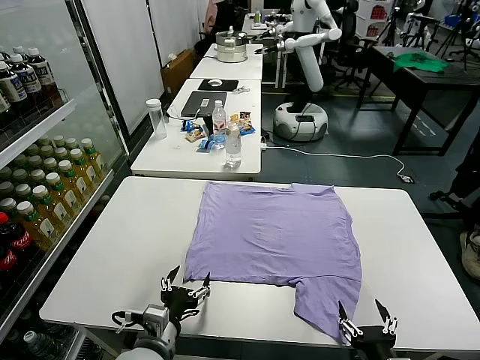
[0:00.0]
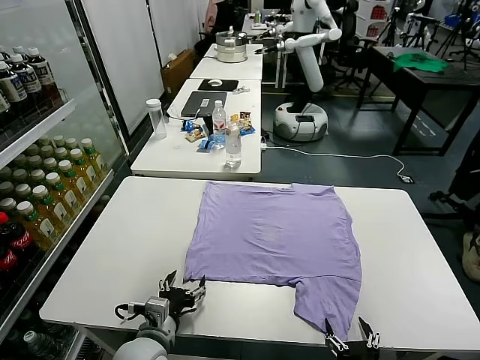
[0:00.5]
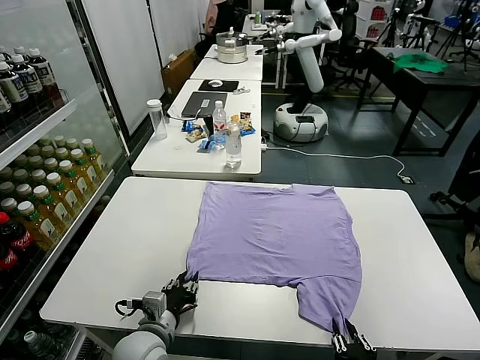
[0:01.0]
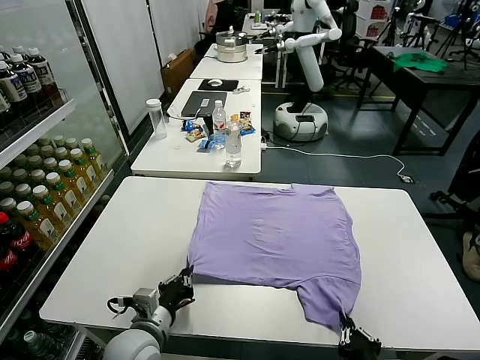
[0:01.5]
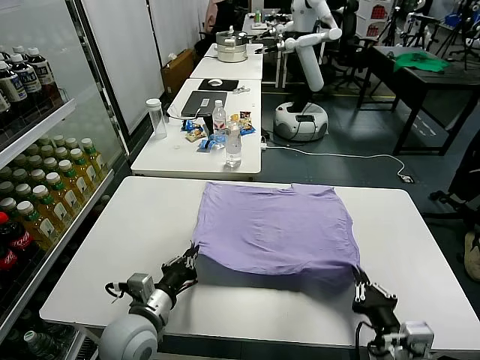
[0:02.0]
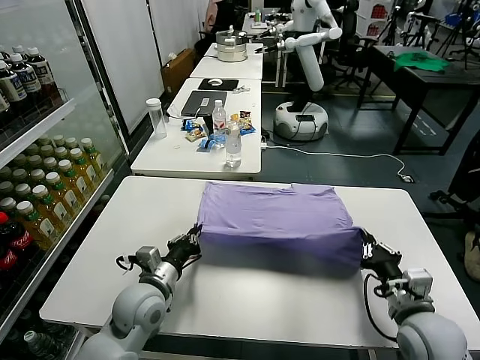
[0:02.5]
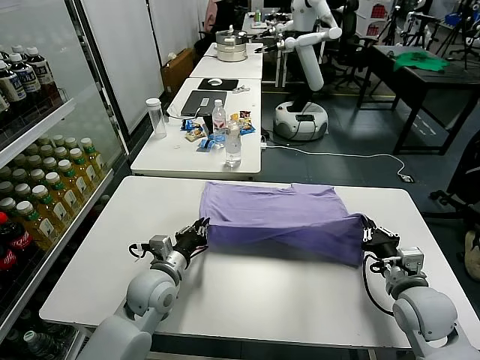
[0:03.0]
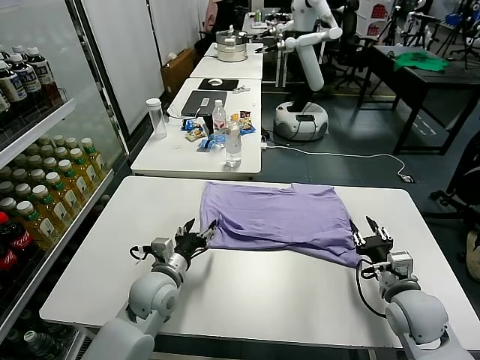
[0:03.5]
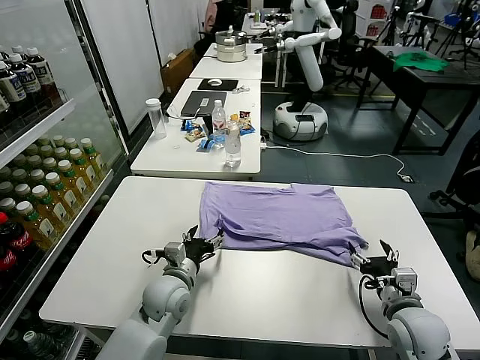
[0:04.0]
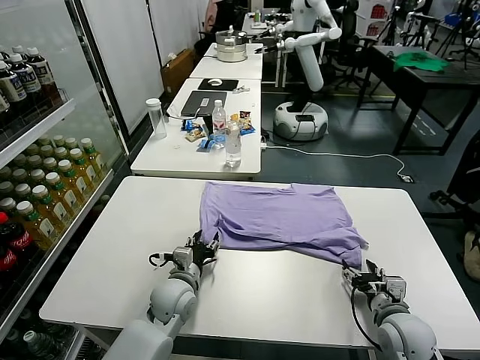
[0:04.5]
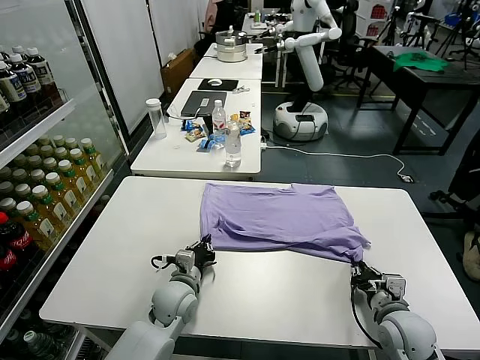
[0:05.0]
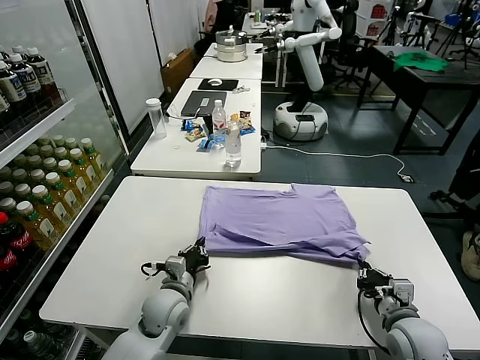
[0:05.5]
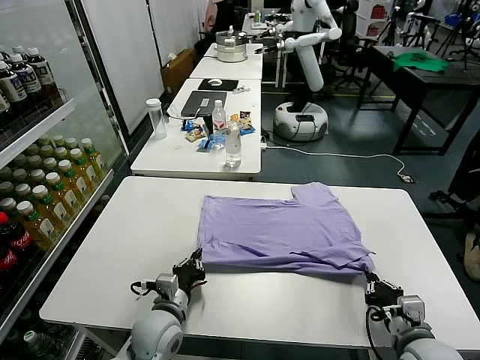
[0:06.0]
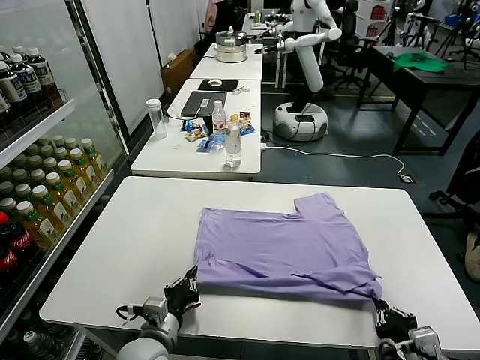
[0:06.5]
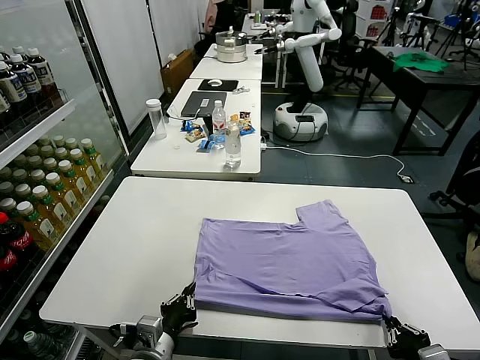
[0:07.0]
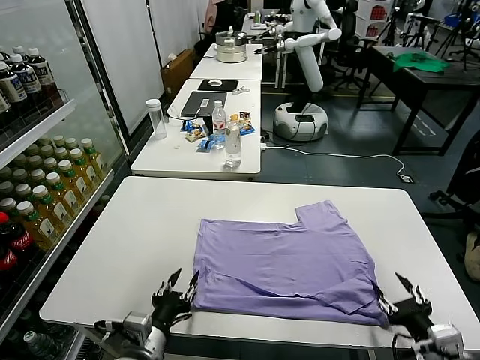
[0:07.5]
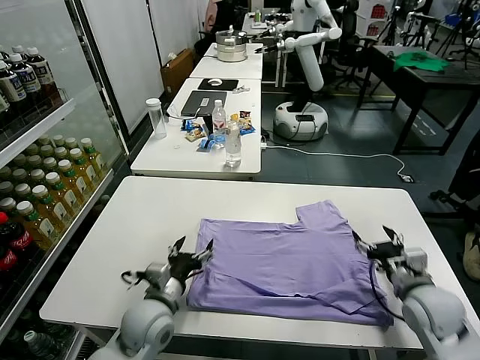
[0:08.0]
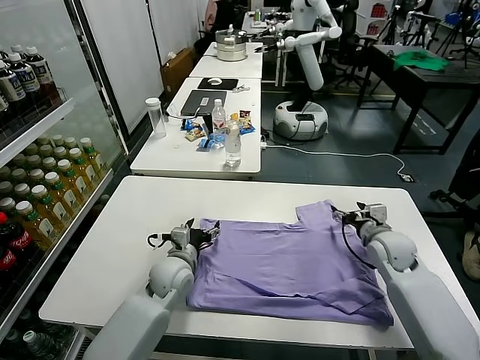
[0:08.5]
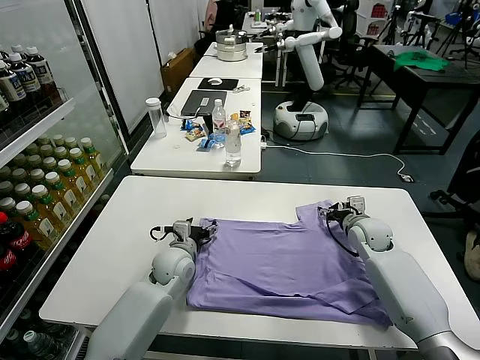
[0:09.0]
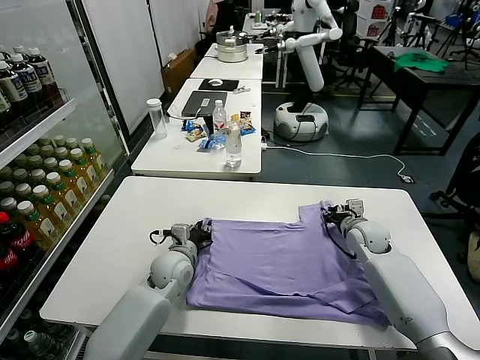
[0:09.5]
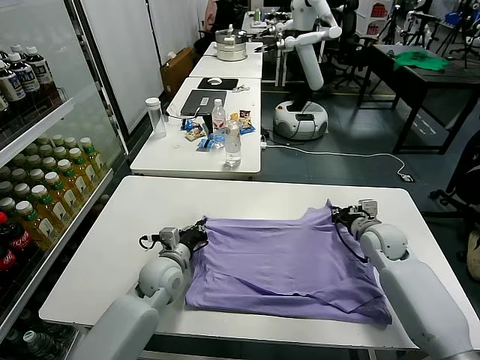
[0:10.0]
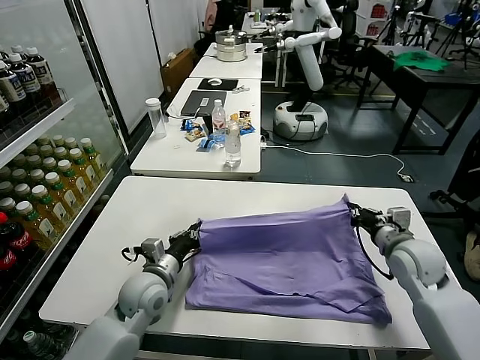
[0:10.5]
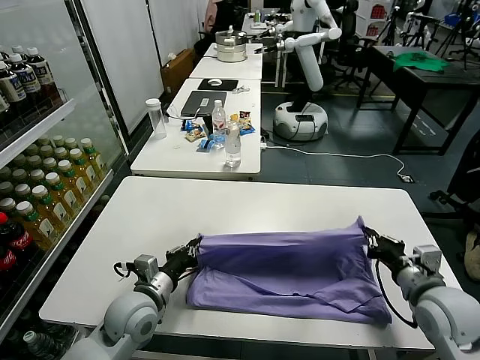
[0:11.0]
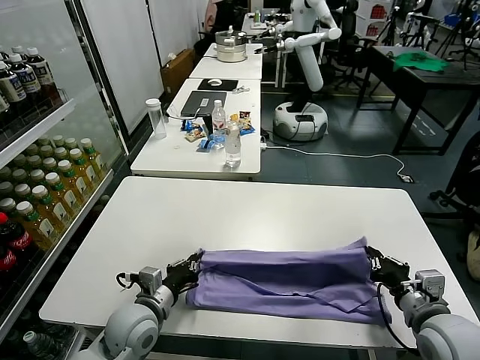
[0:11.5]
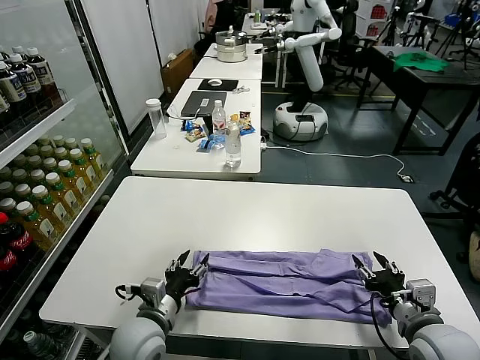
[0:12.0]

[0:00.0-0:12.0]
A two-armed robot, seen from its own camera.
Task of the whole recording: fold and organize the clothes.
Step, 0:00.0 to 0:01.0: use both grippers simultaneously to clamp the lower edge of the clothing fabric.
Step, 0:01.5 to 0:03.5: use both grippers to drag the lower edge of the fabric forward and fold it over the upper edge.
Step, 0:04.0 to 0:07.0: Drag the clothes downward with both gripper.
Step, 0:07.5 to 0:09.5: use both grippers simultaneously to clamp the upper edge of the clothing fabric.
0:02.0 to 0:04.0: The left gripper moves forward, about 10 cm, and opens its fingers; the right gripper is displaced forward and to the right by some 15 cm, and opens up.
0:04.0 to 0:06.0: Both grippers move backward, about 5 cm. The left gripper closes up. The right gripper closes up.
0:06.0 to 0:08.0: The right gripper goes approximately 10 cm forward, and opens up. Meanwhile the left gripper travels backward and back again, some 10 cm each way, and opens.
0:08.0 to 0:10.0: The left gripper is displaced forward by roughly 10 cm, and closes up, while the right gripper moves forward, approximately 20 cm, and closes up.
0:10.0 to 0:12.0: The left gripper travels backward by approximately 15 cm, and opens; the right gripper goes some 25 cm backward, and opens up.

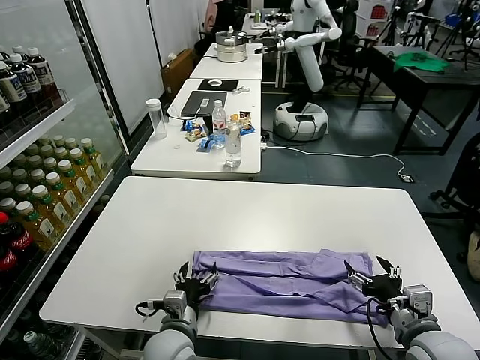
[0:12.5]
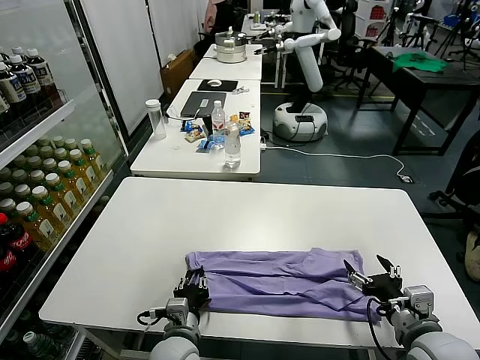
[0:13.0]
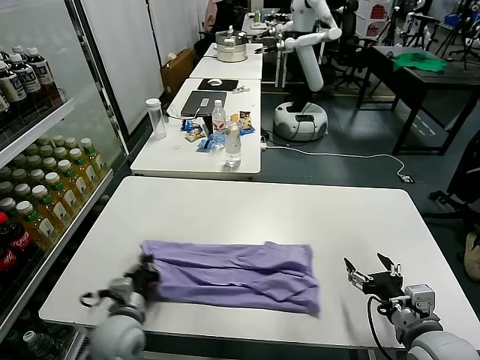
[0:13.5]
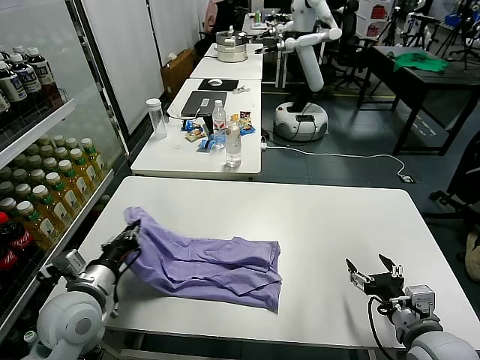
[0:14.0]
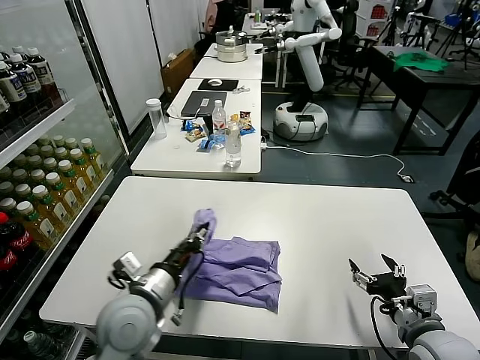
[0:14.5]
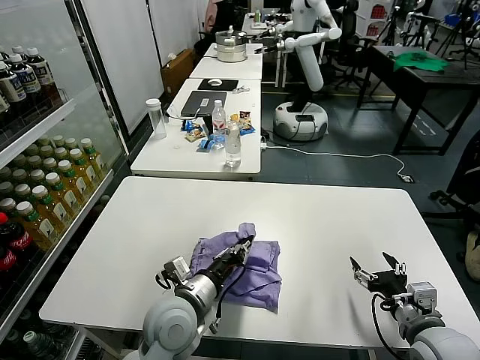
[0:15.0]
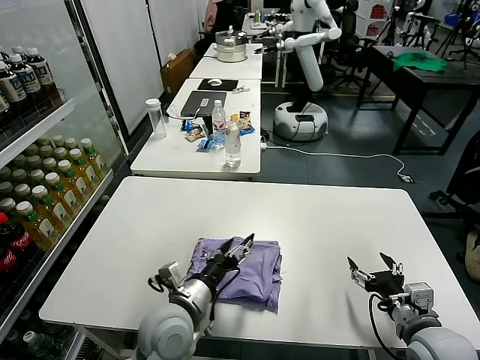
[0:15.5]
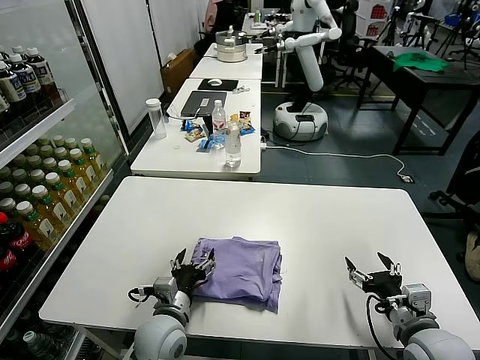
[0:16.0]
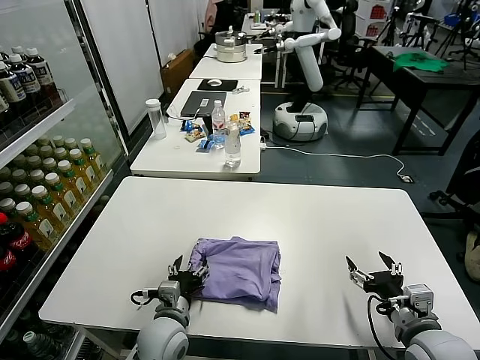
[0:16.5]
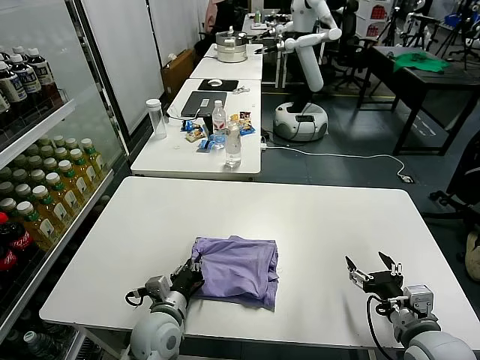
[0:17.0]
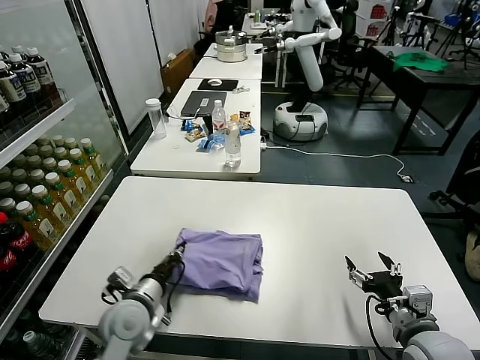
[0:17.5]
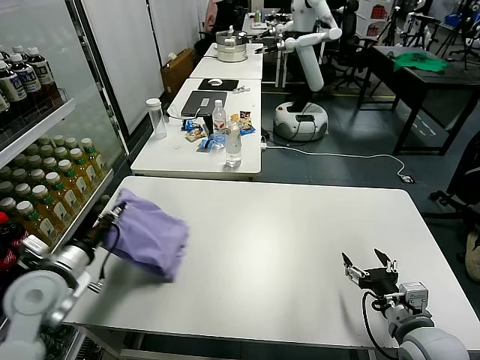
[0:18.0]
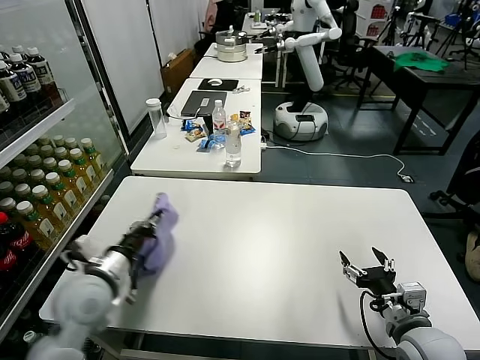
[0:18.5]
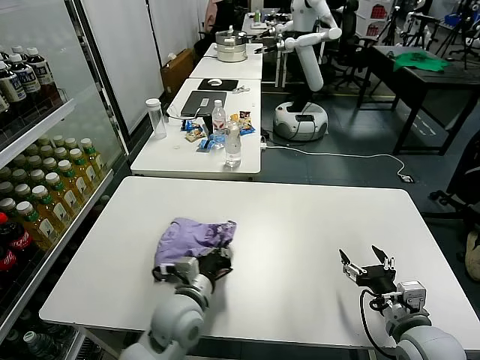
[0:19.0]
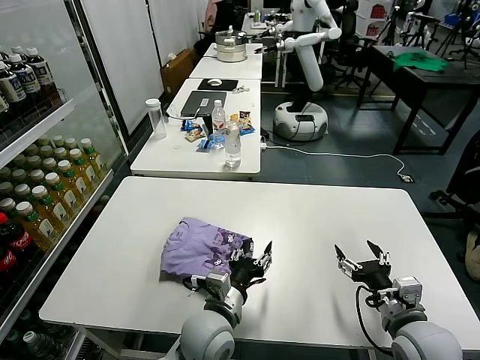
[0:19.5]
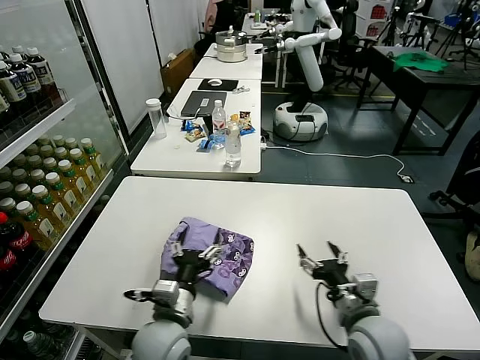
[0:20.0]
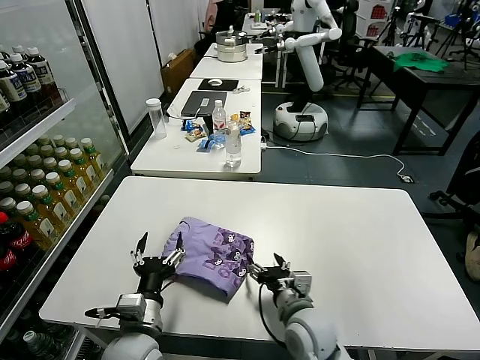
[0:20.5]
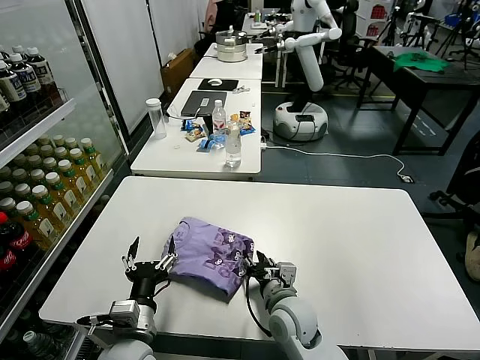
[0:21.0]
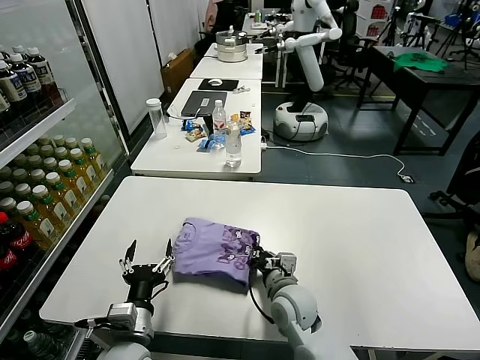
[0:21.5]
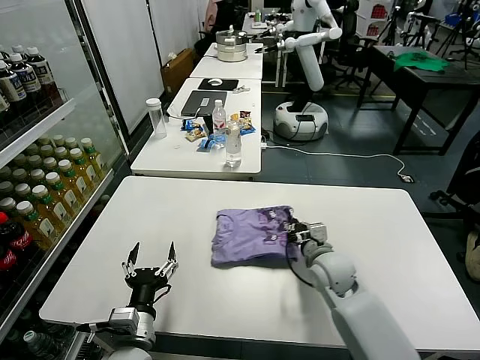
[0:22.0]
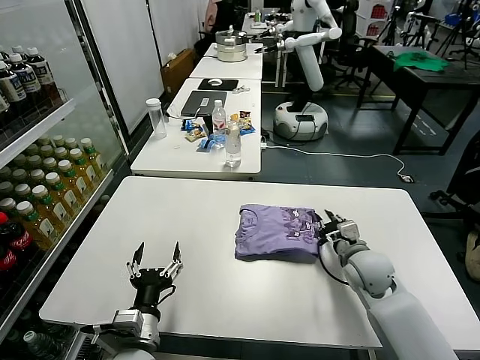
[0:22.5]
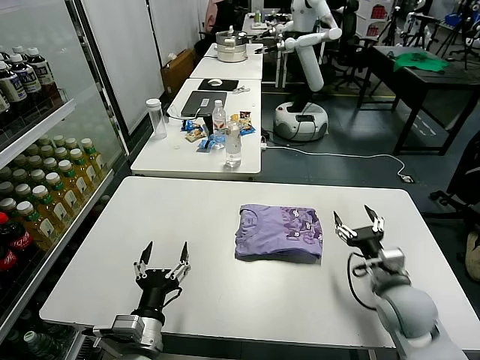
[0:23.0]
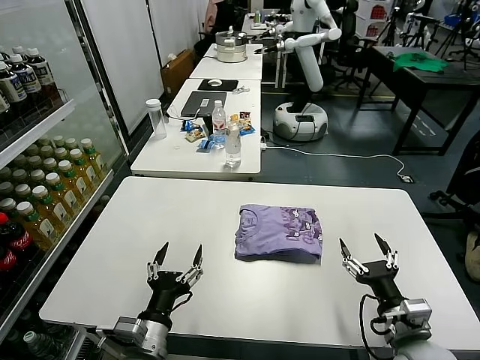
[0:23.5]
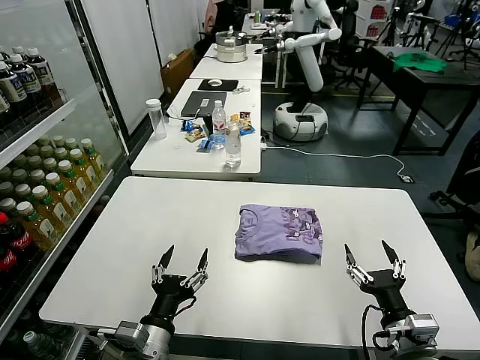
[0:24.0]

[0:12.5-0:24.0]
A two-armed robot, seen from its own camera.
Task of the whole recording: fold and organize the clothes.
Step, 0:12.5 to 0:13.0: use the left gripper to clamp the left edge of the fabric.
Step, 0:13.5 to 0:15.0: use the left gripper to drag the left edge of the fabric to the left and folds it over the right edge.
Step, 0:15.5 to 0:19.5: Flip the folded clothes over with left gripper.
Step, 0:20.0 to 0:22.5: Drag the clothes to the center of the table.
0:12.5 to 0:14.5: The left gripper shifts some 10 cm upward, goes to the left and returns, approximately 15 cm each way, and closes its fingers.
0:14.5 to 0:16.5: The left gripper moves downward, about 10 cm, and opens up.
0:16.5 to 0:18.5: The left gripper is displaced upward and to the left by some 20 cm, and closes up.
0:18.5 to 0:20.0: The left gripper heads to the right and downward, covering some 20 cm, and opens, while the right gripper heads to the left, covering about 5 cm.
0:20.0 to 0:22.0: The left gripper is displaced to the left by some 5 cm, while the right gripper moves forward, about 15 cm, and closes its fingers.
0:22.0 to 0:24.0: The right gripper moves backward and to the right, about 25 cm, and opens up.

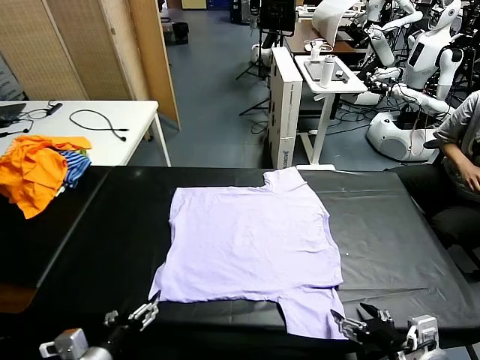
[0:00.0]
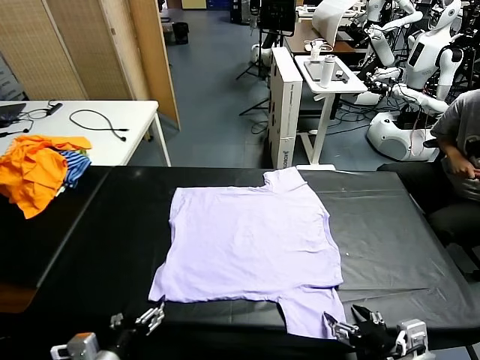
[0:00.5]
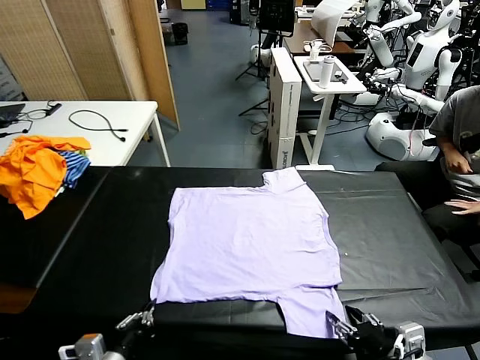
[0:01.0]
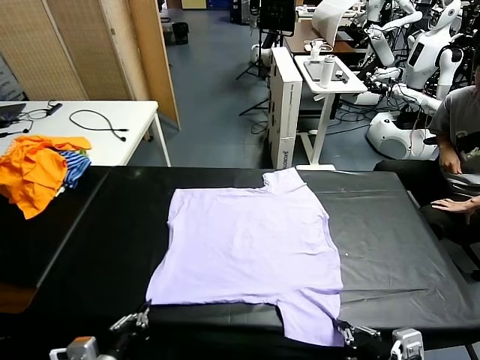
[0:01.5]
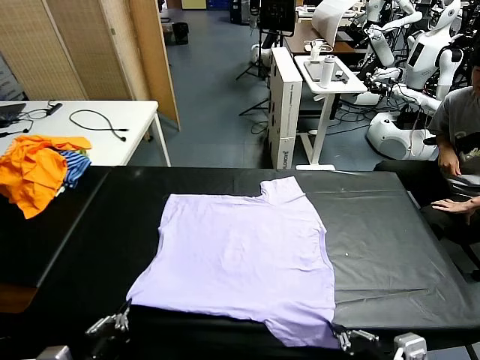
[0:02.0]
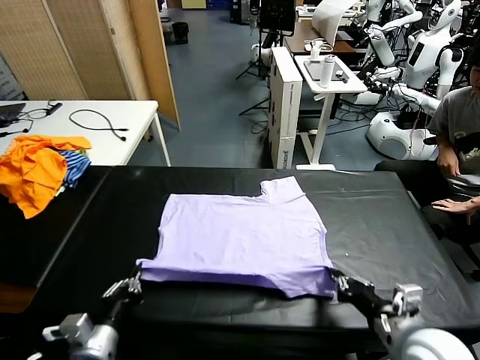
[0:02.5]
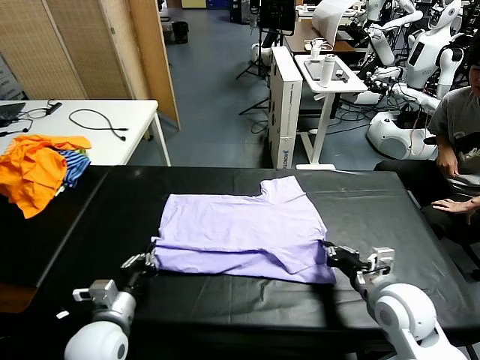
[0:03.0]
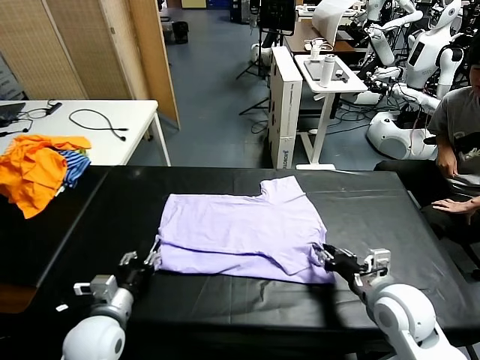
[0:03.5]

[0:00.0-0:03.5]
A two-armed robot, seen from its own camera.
Task of the whole recording: fold and organize the clothes.
Step, 0:00.0 to 0:01.5: use both grippers simultaneously to clamp the lower edge of the clothing fabric.
0:02.0 to 0:03.5: The two grippers go some 10 cm forward. The left gripper opens its fingers. Meanwhile the right gripper opens.
